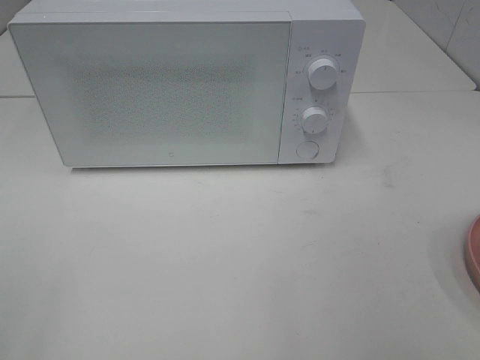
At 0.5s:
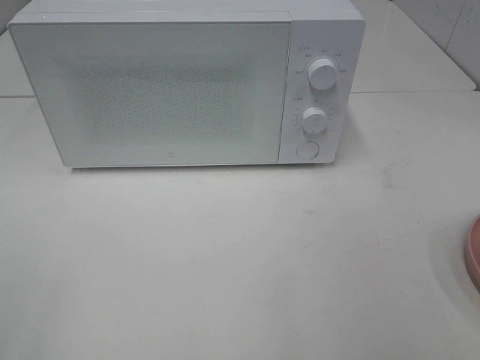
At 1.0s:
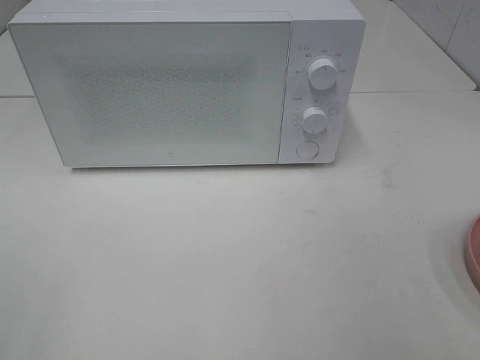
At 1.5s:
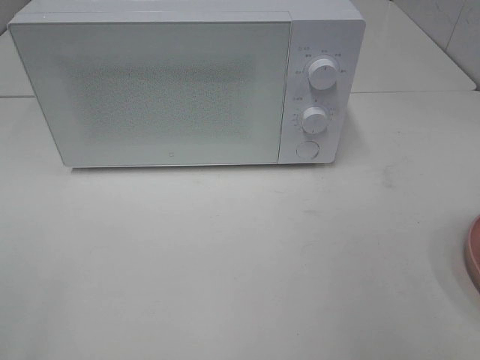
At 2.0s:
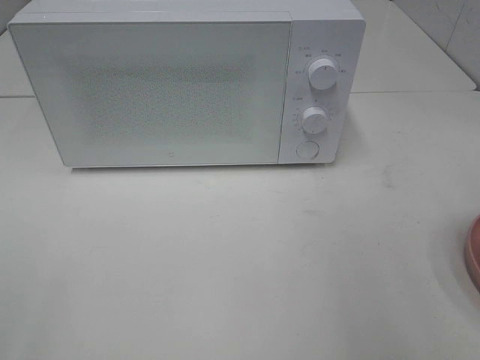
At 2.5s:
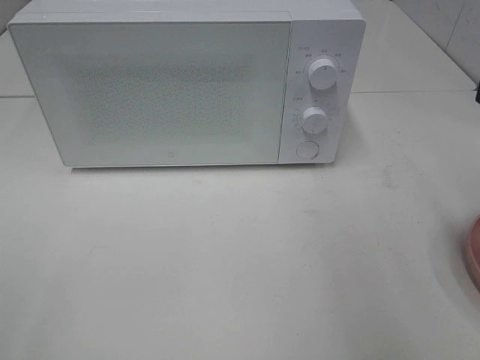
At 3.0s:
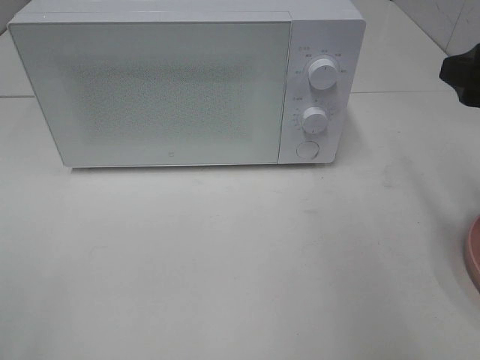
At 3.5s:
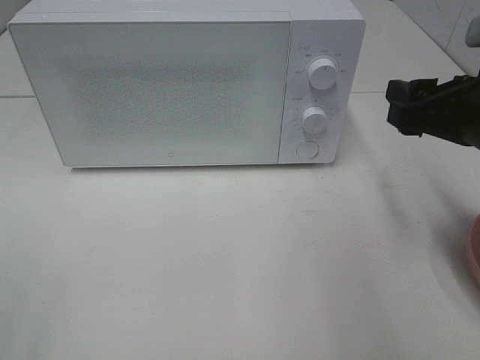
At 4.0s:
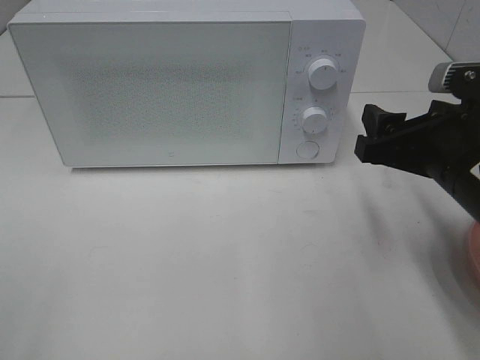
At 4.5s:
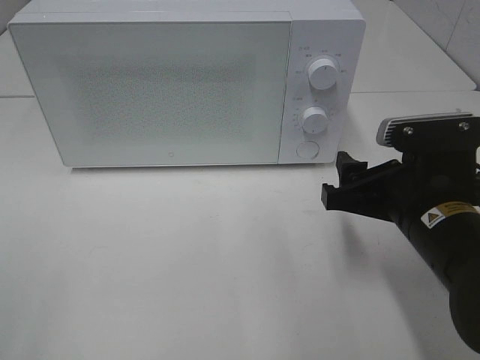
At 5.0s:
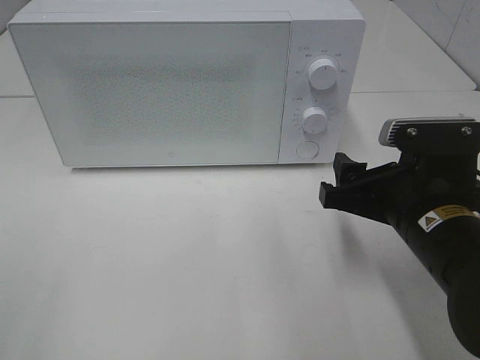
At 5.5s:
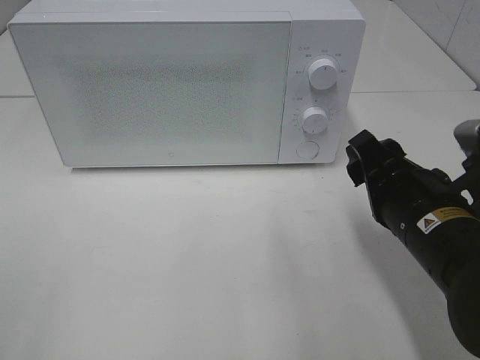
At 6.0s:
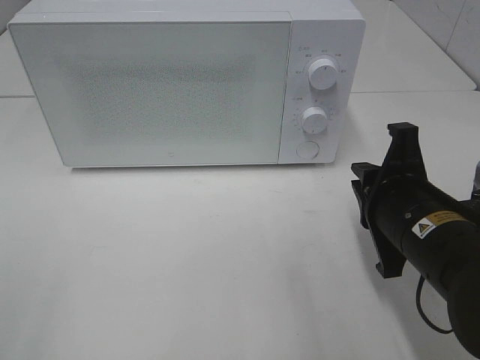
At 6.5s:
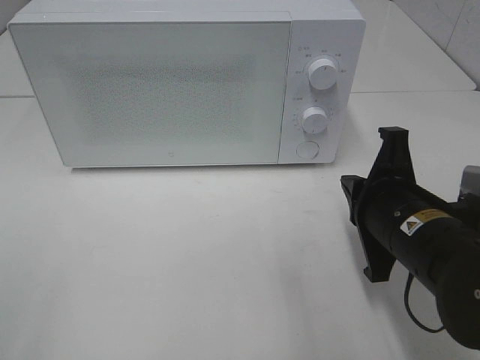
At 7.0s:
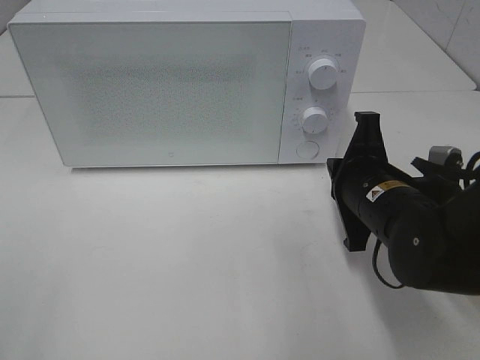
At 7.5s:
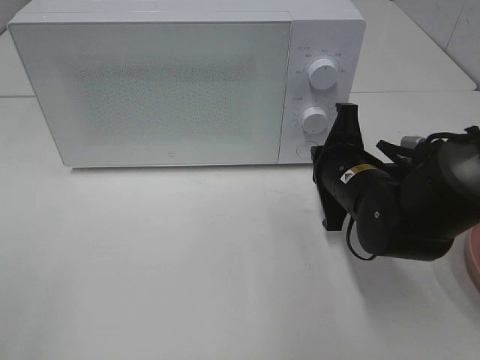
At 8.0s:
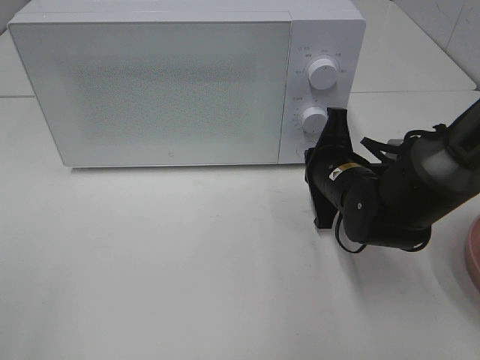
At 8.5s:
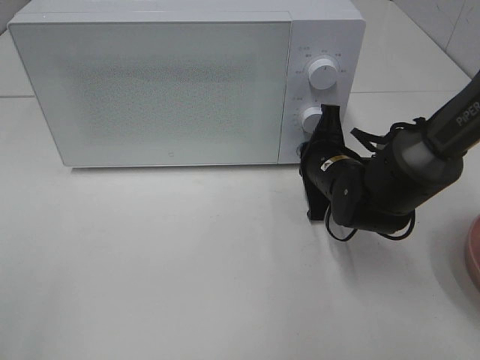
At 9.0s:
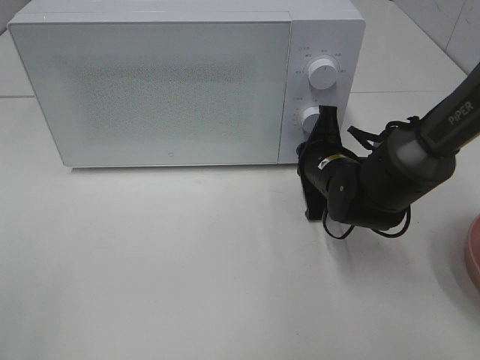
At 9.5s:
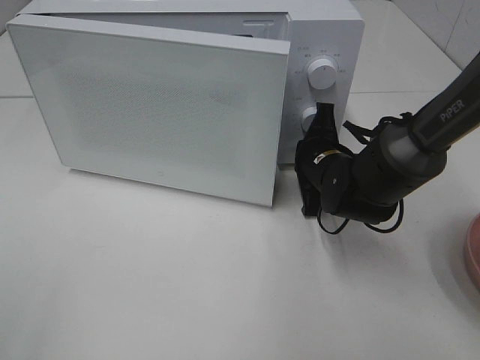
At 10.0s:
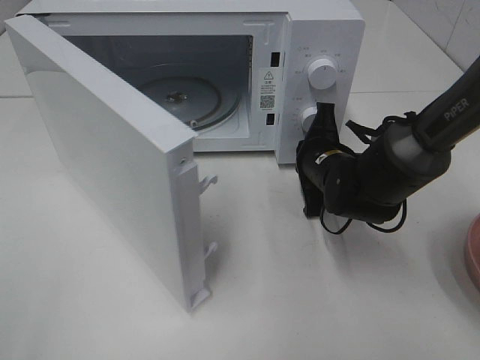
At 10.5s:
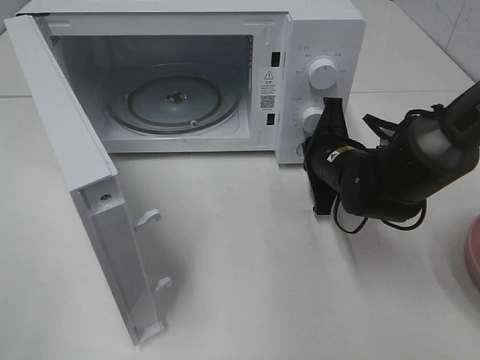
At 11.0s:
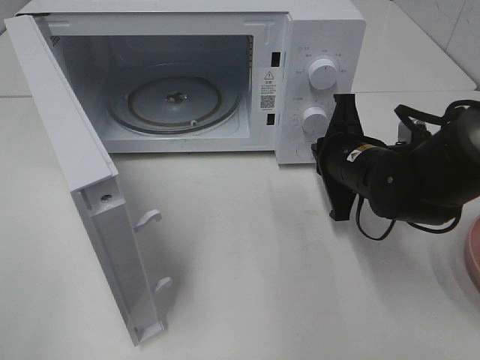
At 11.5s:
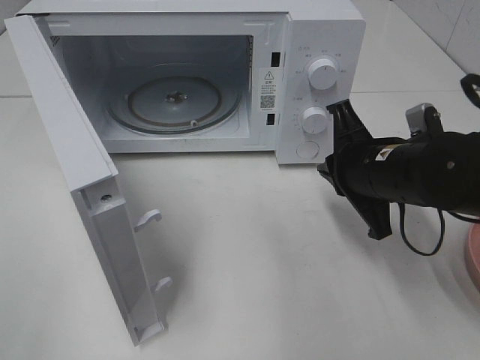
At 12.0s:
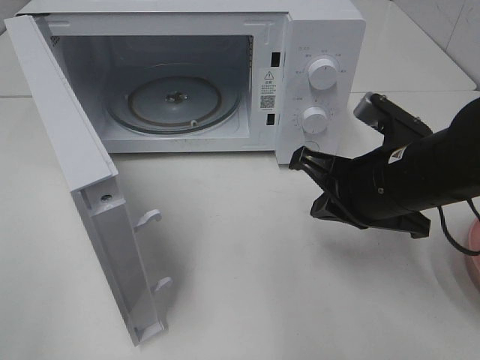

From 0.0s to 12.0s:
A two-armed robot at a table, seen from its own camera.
Task of the whole recording: Heat the burger.
Step, from 0.0s to 11.0s: Right hand: press the switch.
From 2.0s to 4.0s: The right gripper goes approximately 15 cm downward, forward and to the left.
From 4.0s to 6.0s: The right gripper changes place by approximately 5 cm, and closes up.
From 6.0s to 8.0s: The right gripper travels forward and downward by approximately 15 cm.
From 10.0s to 12.0s: The right gripper goes some 15 cm backward and upward.

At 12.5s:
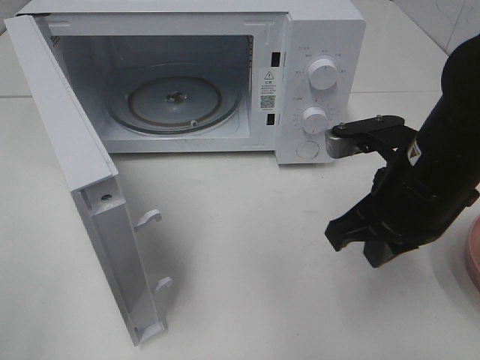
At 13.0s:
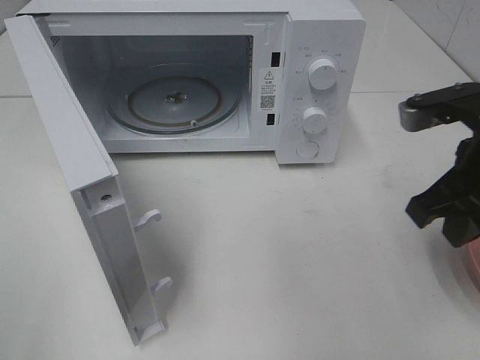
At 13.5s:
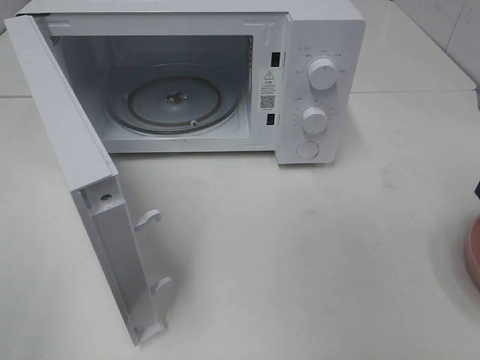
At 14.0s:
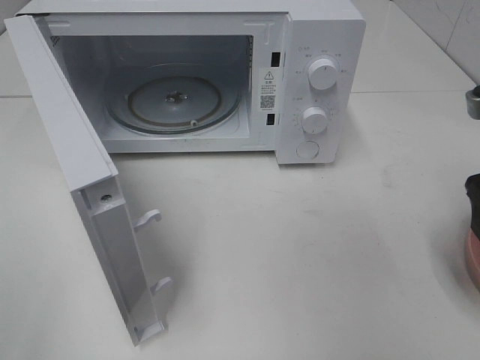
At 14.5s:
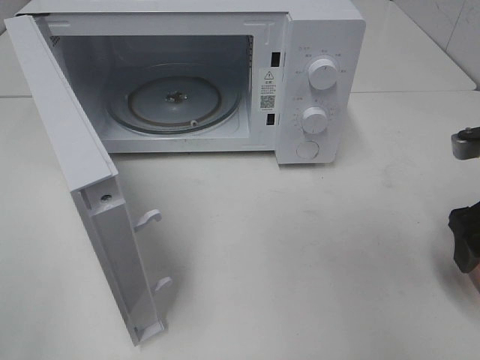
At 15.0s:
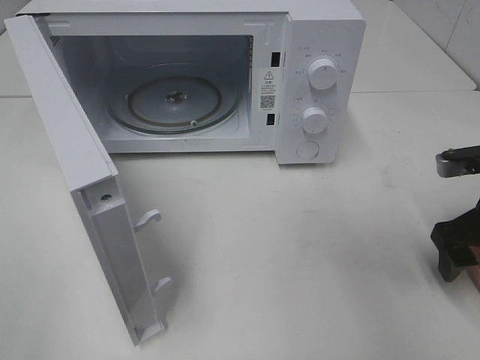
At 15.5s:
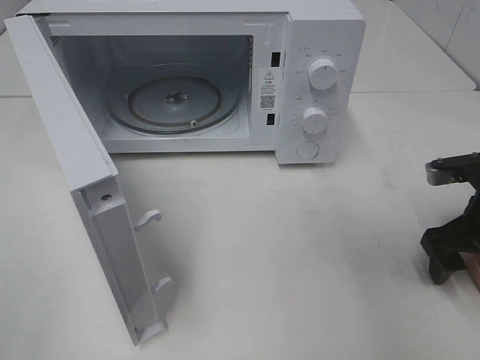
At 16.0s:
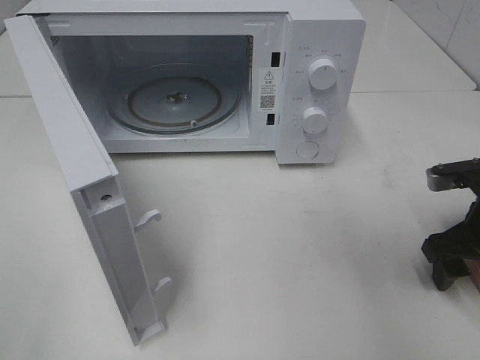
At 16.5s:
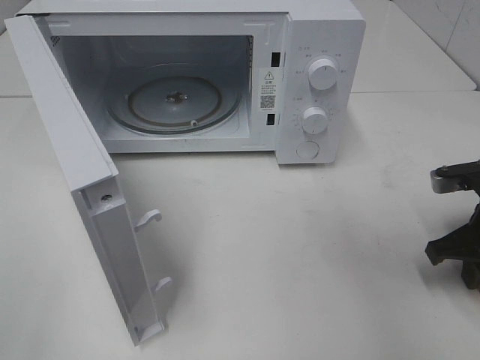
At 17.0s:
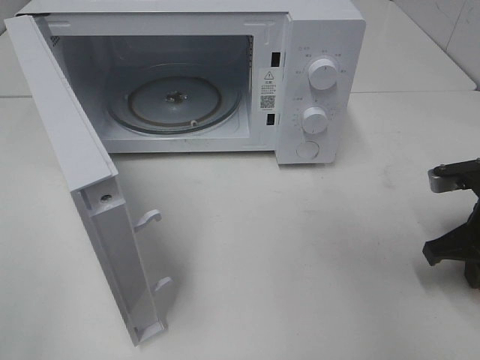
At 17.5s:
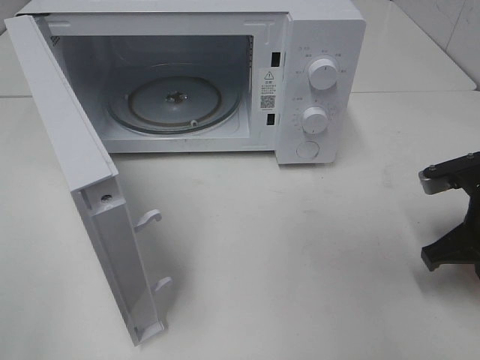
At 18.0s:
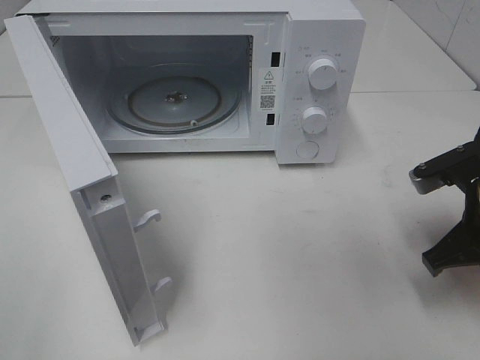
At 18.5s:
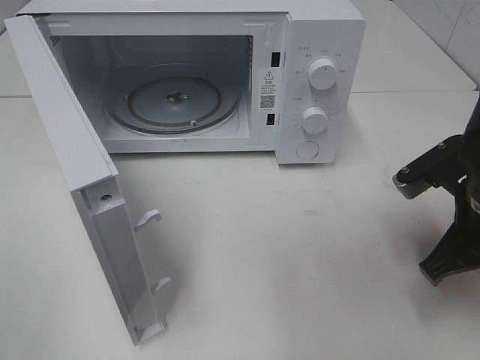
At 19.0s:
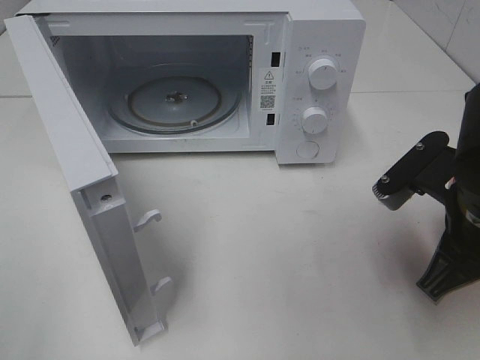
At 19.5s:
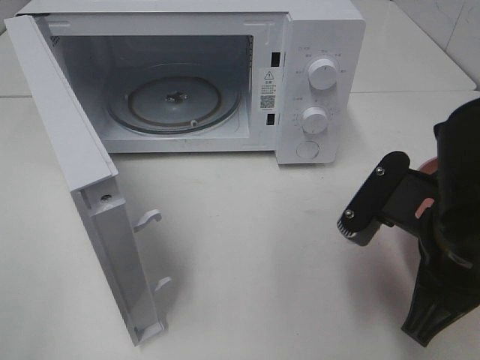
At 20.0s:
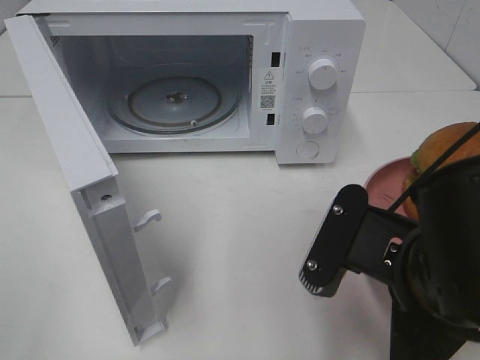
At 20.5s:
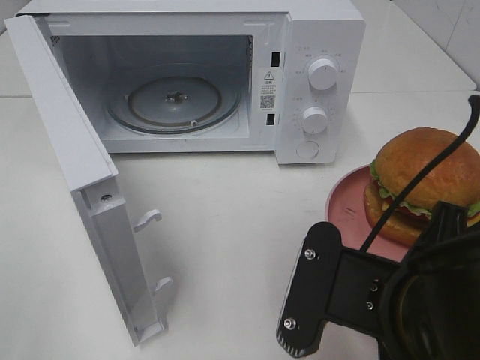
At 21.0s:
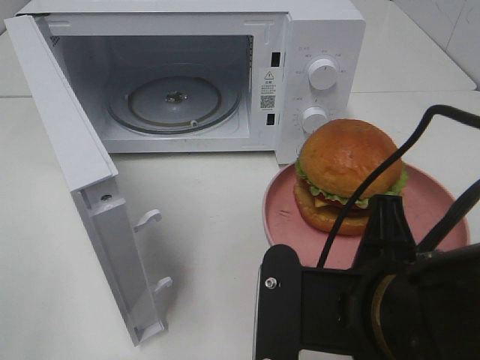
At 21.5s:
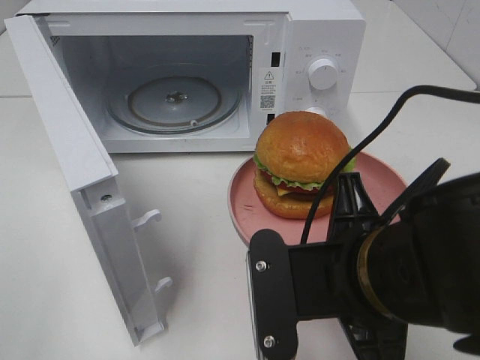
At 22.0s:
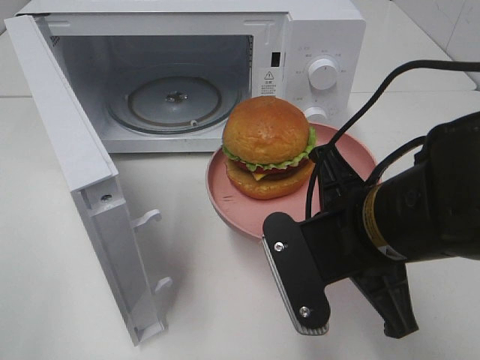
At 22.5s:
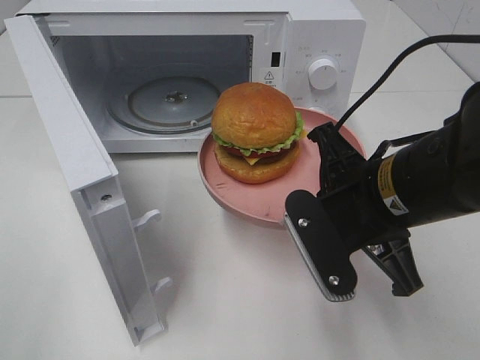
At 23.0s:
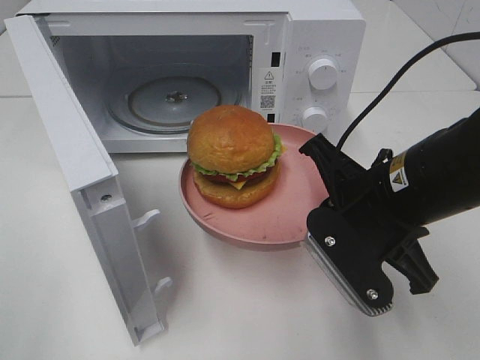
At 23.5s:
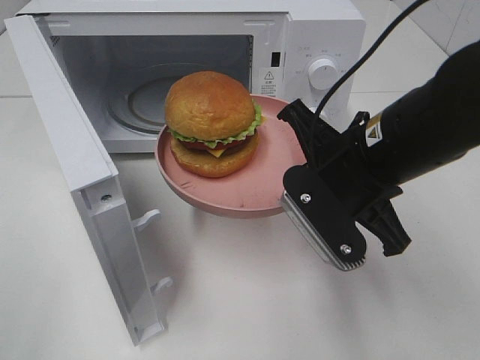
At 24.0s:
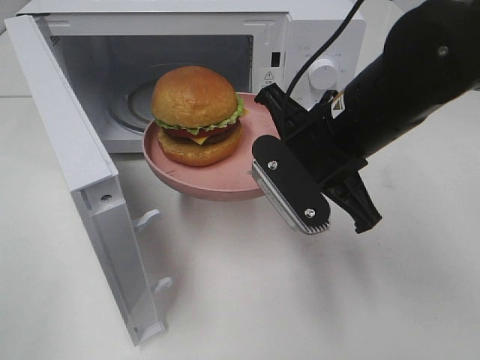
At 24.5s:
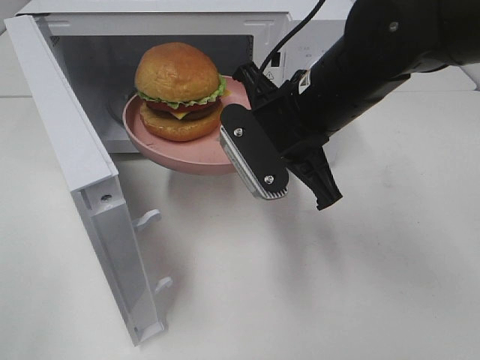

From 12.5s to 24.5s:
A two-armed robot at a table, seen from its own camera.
Task of the whole recording: Heat the burger.
Step, from 12.5s to 17.5s: Right hand: grab the plate with the hamburger.
From 12.5s to 14.5s: The right gripper shifts roughly 15 cm to the right, and opens up.
From 14.5s to 16.5s: The right gripper heads downward, covering about 5 cm, and closes.
From 16.5s to 18.5s: The right gripper heads to the left and upward, covering some 10 cm.
From 18.5s to 20.5s: The right gripper moves backward and to the left, approximately 15 cm.
From 20.5s to 22.5s: The right gripper is displaced forward by approximately 10 cm.
From 22.5s to 24.5s: The right gripper travels forward and to the left by roughly 10 cm.

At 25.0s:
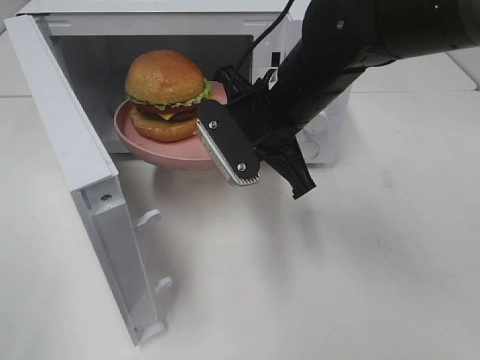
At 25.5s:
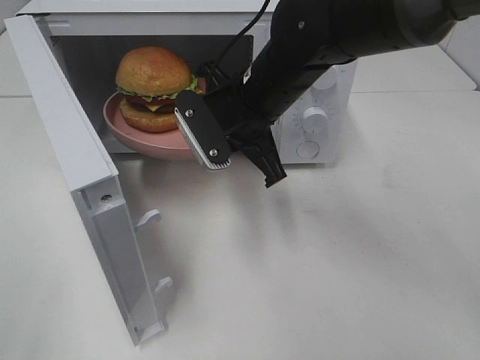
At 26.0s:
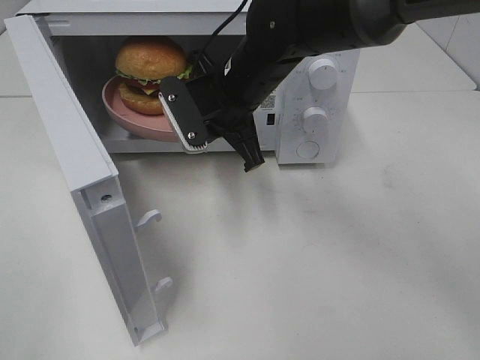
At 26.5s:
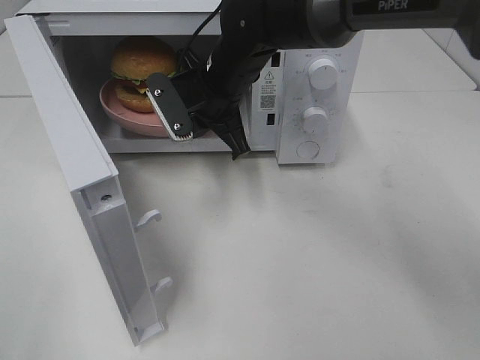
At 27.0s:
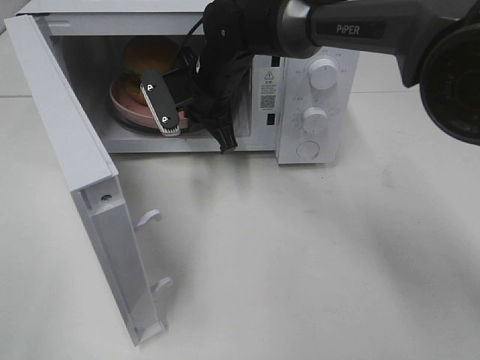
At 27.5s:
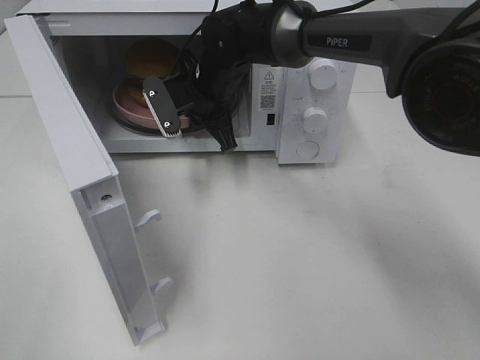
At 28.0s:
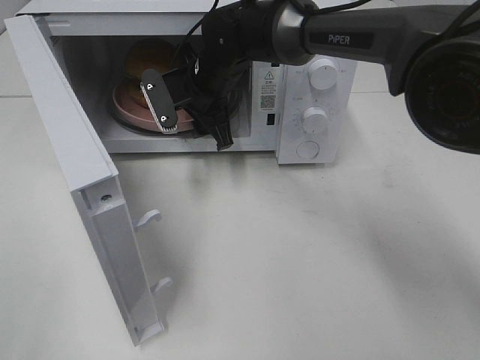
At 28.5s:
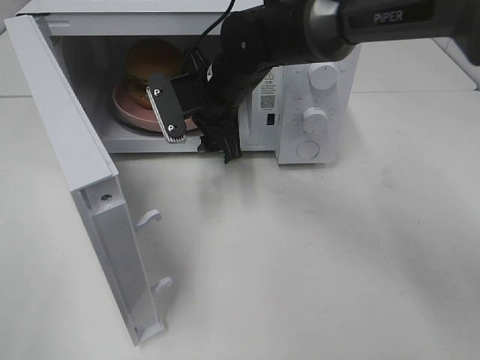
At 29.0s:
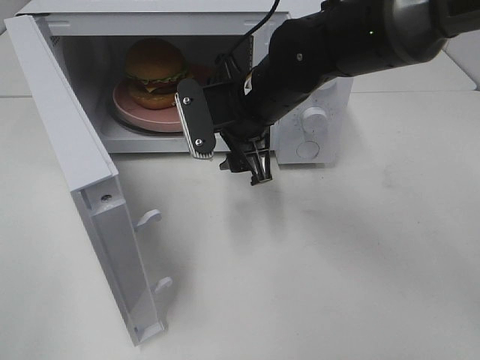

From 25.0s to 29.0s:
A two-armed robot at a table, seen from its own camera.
Task of the whole recording: Heat the burger.
Step, from 25.0s to 28.0s: Right hand: place the plate in the microwave.
From 25.0s to 27.0s: The right gripper shifts approximately 15 cm forward and to the left.
From 27.0s to 29.0s: The right gripper heads backward and to the right, covering roughly 10 cm, and opens its fingers.
